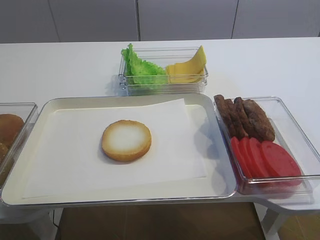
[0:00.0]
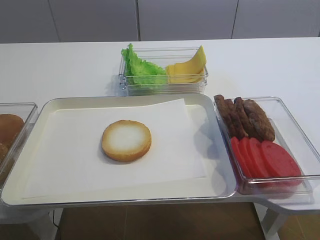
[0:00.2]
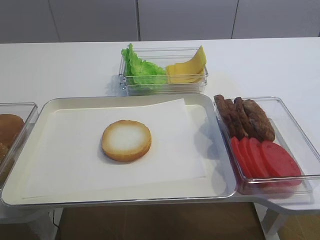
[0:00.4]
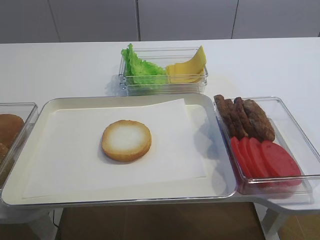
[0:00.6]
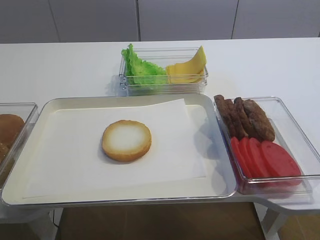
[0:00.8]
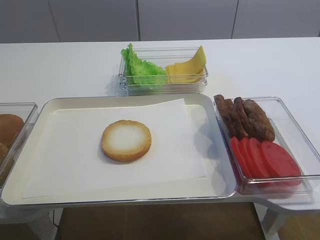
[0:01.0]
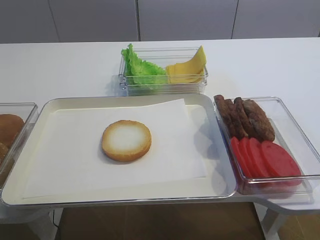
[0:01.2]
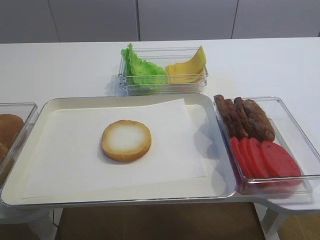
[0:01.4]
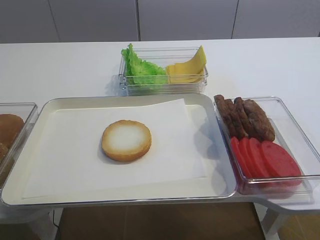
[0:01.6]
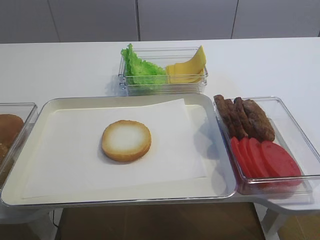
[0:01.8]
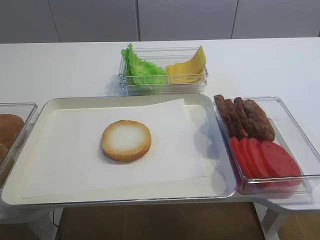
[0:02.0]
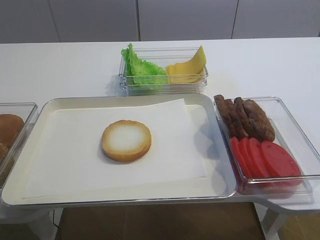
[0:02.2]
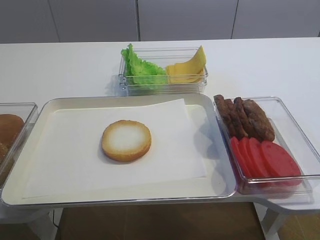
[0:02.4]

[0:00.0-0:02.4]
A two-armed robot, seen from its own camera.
0:01.2 to 0:02.4: Neither gripper changes place.

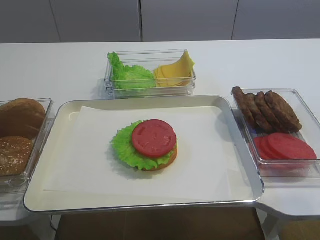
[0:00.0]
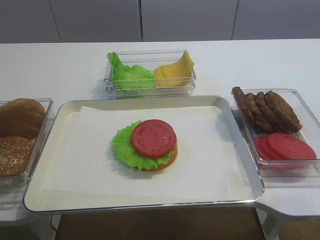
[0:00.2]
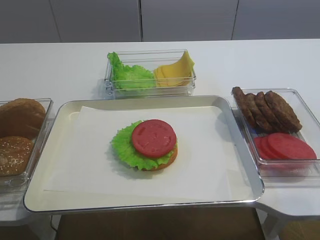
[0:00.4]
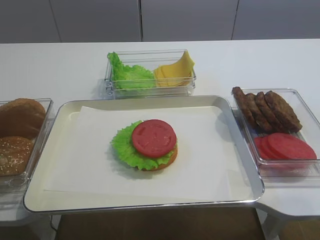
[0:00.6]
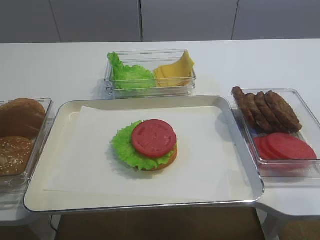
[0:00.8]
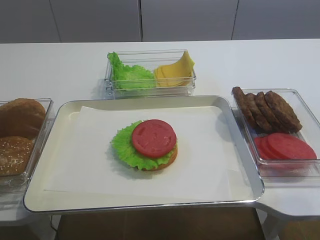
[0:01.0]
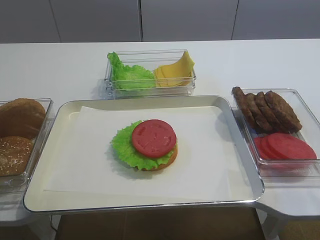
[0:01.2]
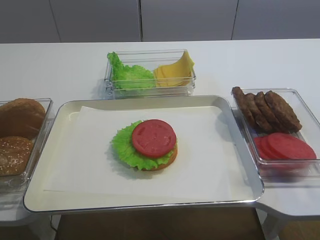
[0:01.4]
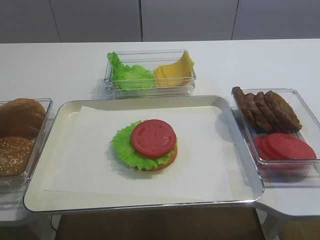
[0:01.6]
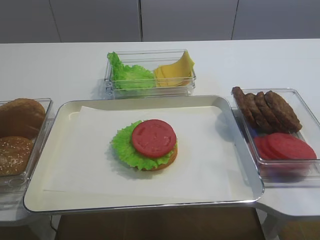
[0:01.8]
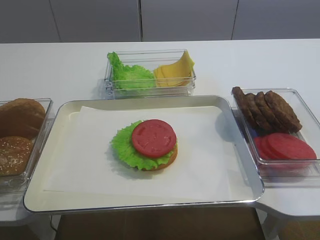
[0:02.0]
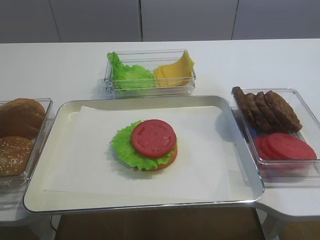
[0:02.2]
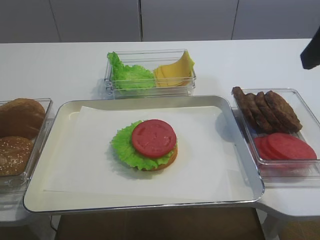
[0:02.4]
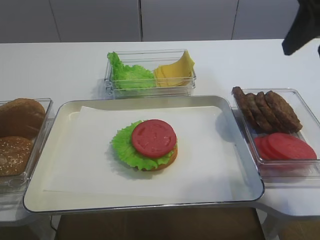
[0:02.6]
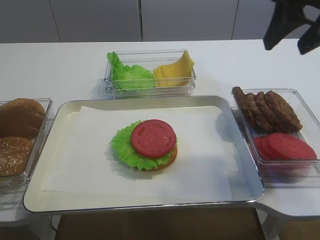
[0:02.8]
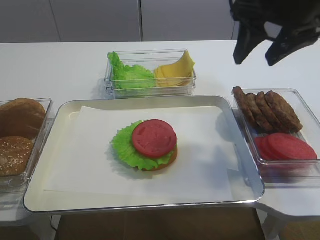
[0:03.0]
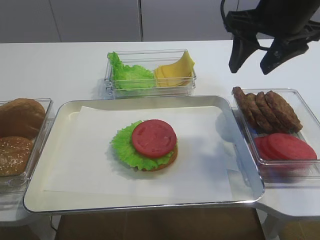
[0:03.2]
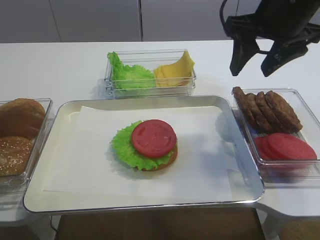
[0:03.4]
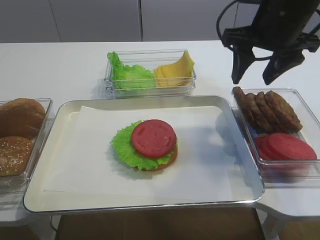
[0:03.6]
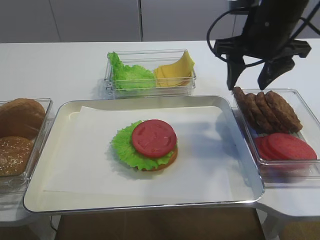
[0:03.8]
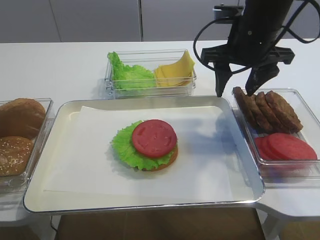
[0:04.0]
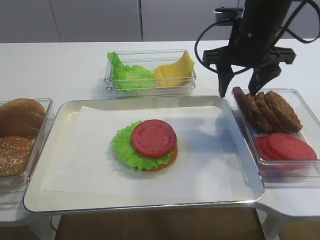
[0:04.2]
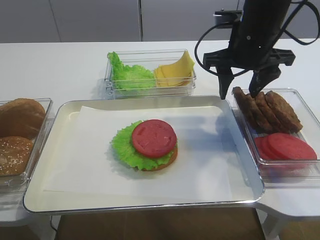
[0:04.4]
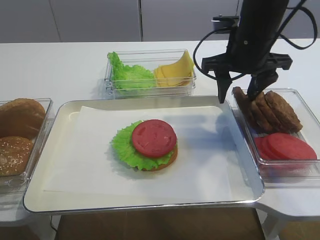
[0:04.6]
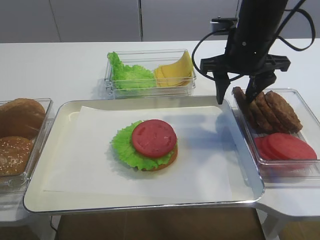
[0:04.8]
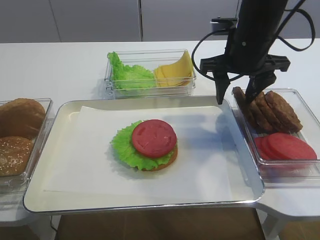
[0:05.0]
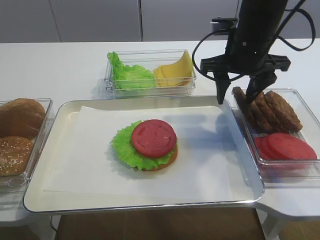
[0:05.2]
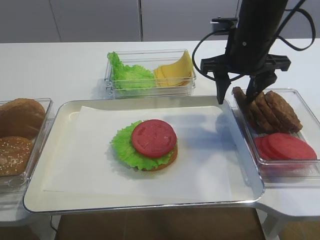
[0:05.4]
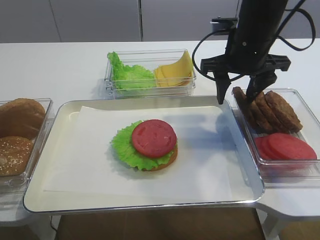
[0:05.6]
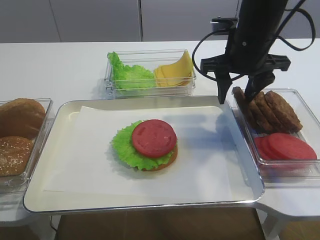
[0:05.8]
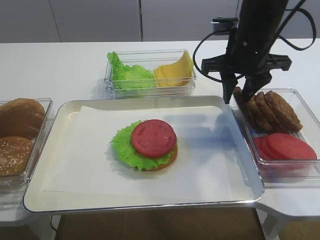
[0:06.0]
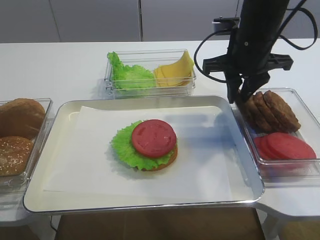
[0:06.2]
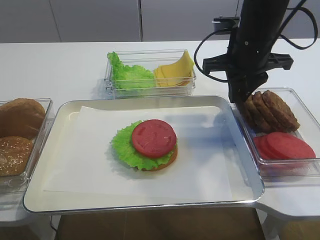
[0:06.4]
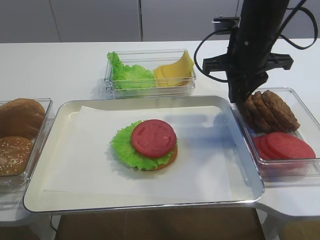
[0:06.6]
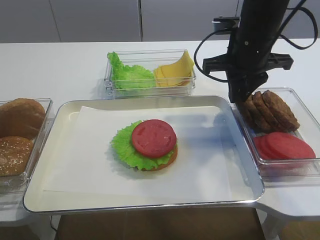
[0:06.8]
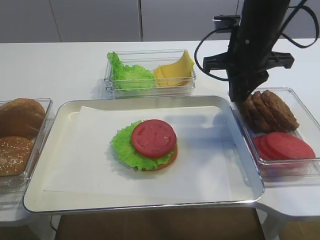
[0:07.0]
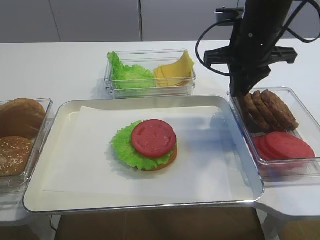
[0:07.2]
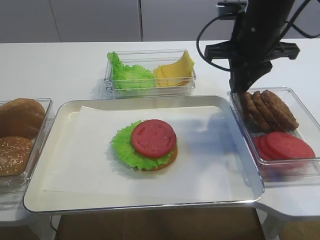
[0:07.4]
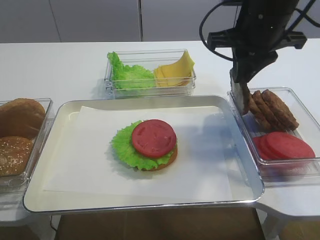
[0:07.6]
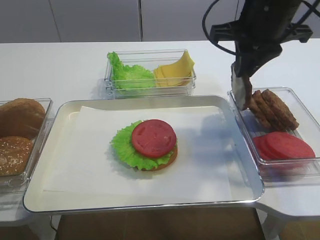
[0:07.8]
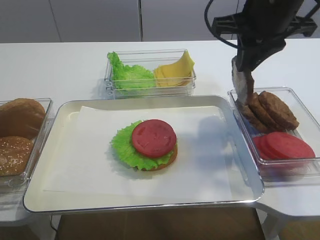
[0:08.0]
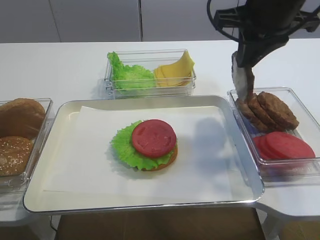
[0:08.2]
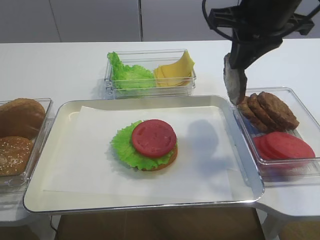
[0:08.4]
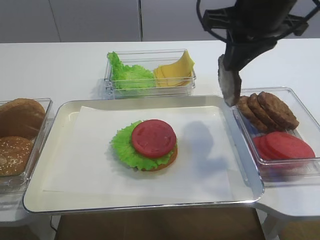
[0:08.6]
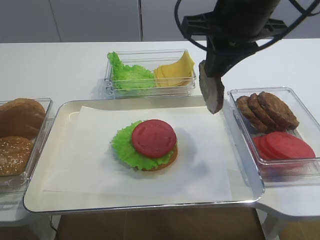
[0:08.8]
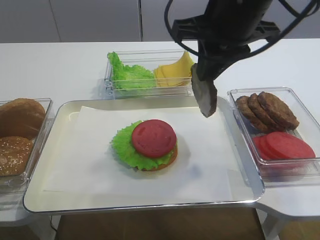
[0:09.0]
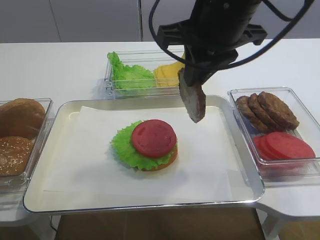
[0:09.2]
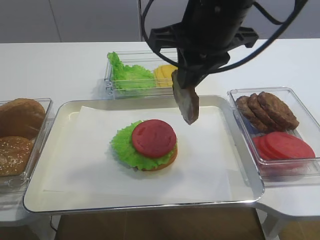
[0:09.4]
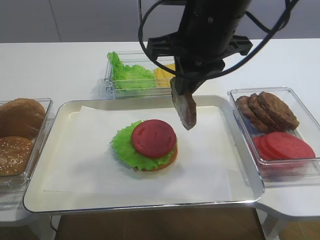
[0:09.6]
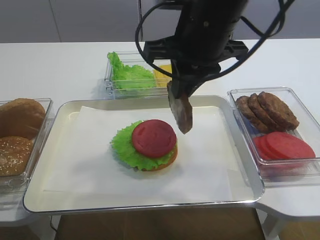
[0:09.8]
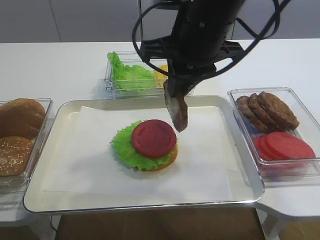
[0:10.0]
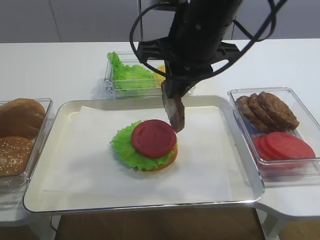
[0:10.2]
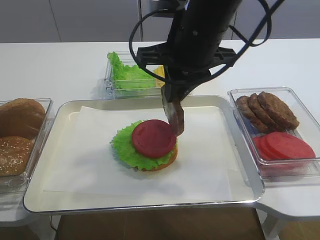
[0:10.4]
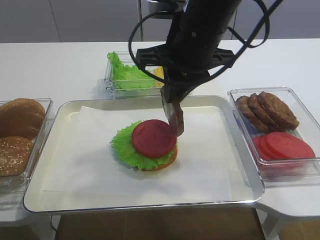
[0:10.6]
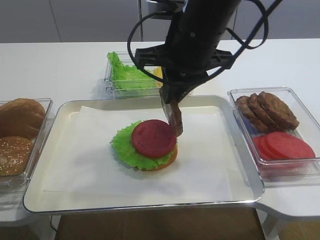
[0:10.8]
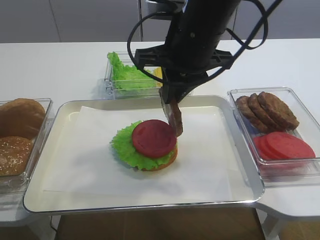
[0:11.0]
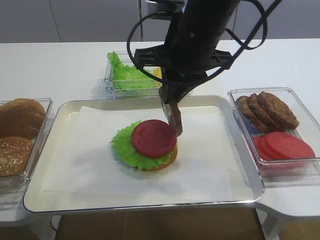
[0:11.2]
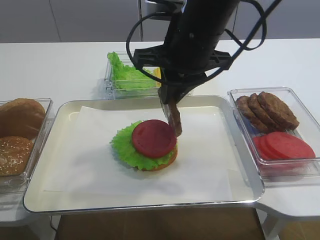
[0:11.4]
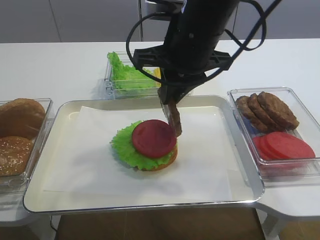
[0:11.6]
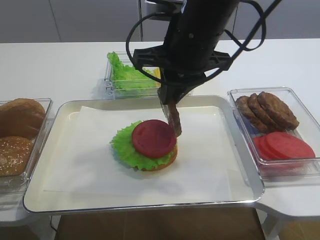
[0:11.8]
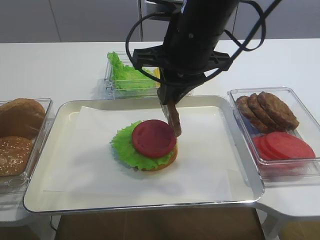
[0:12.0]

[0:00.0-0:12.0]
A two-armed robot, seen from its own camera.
Step, 0:00.0 to 0:08.4: Pick up the cutlet with the right gripper.
0:01.6 to 0:03.0: The right gripper goes roughly 25 cm forward.
0:03.0 to 0:04.4: The right gripper travels downward and forward by roughly 10 cm.
0:04.4 to 0:06.0: The right gripper closes its fingers.
0:06.0 to 0:07.6: The right gripper closes.
0:07.6 to 0:09.0: The right gripper heads to the left, covering some 5 cm.
0:09.0 to 0:10.4: The right gripper shifts by about 5 cm.
0:10.4 to 0:12.0: Both grippers stay put.

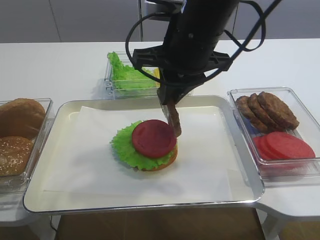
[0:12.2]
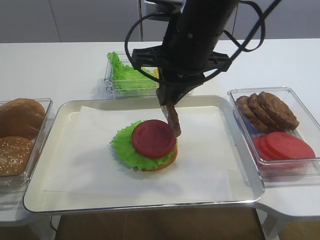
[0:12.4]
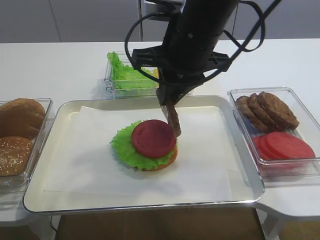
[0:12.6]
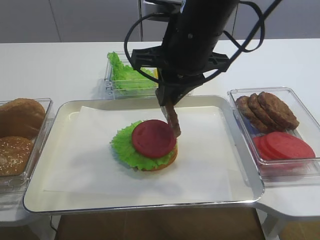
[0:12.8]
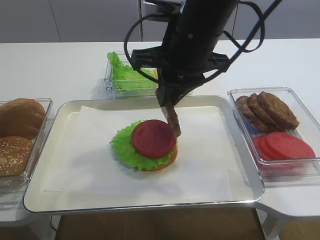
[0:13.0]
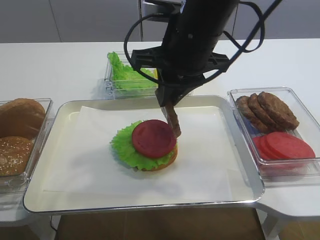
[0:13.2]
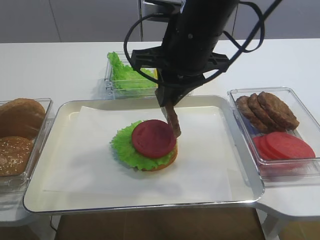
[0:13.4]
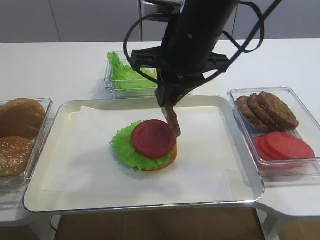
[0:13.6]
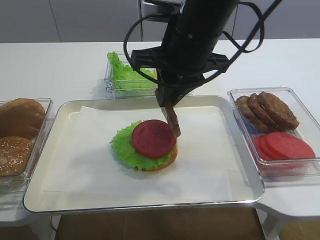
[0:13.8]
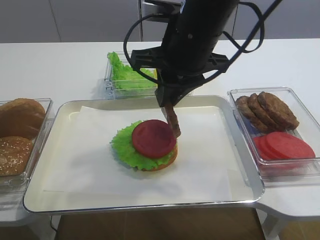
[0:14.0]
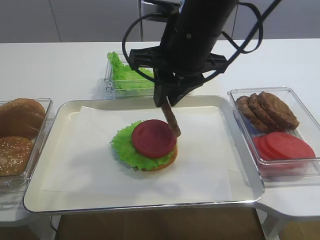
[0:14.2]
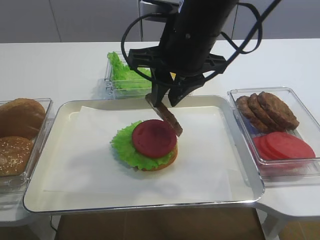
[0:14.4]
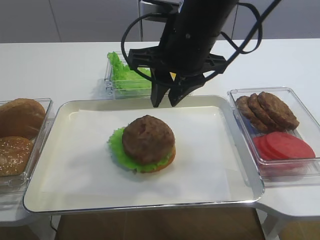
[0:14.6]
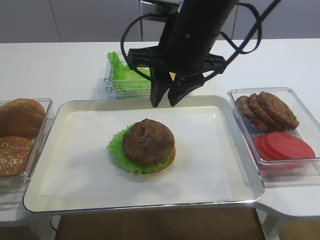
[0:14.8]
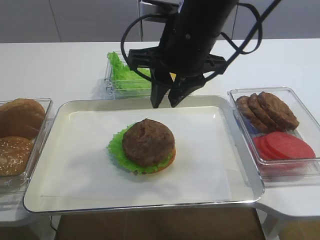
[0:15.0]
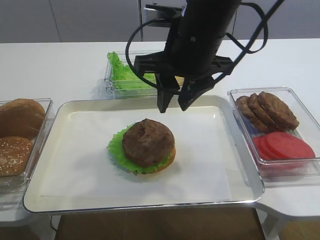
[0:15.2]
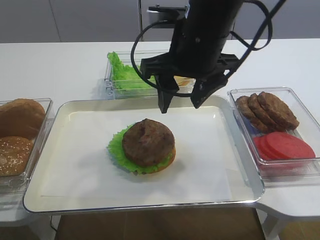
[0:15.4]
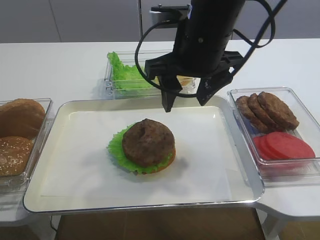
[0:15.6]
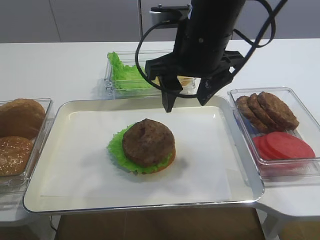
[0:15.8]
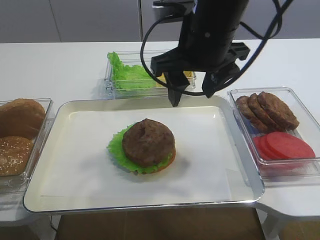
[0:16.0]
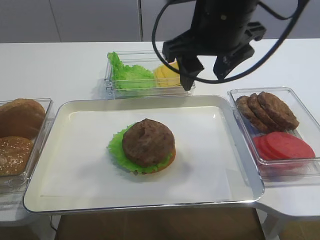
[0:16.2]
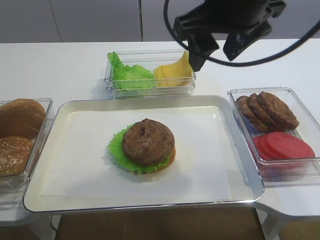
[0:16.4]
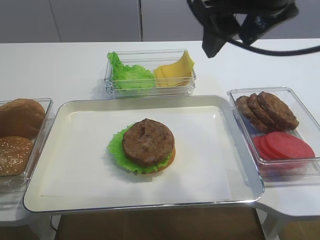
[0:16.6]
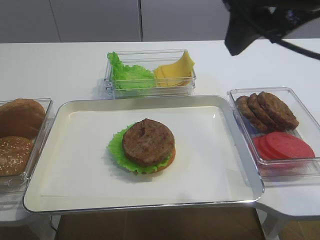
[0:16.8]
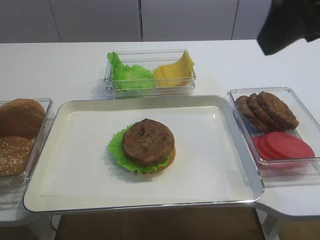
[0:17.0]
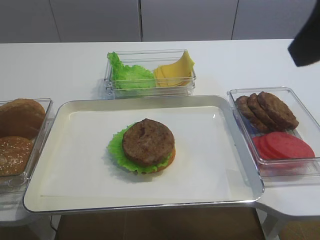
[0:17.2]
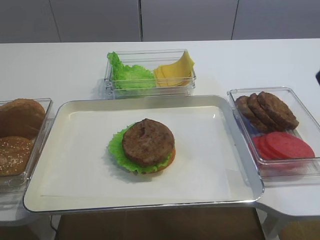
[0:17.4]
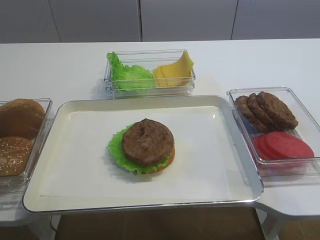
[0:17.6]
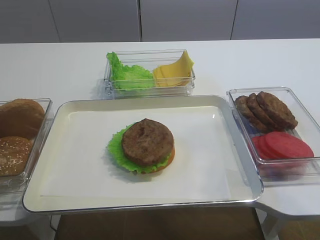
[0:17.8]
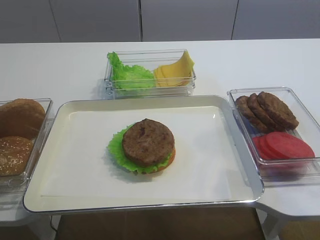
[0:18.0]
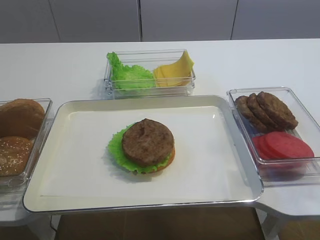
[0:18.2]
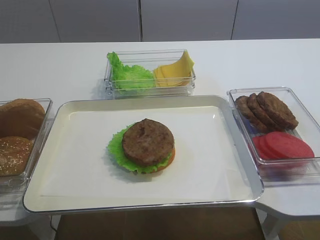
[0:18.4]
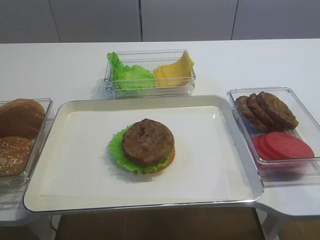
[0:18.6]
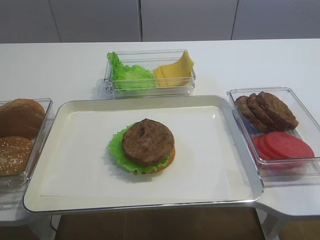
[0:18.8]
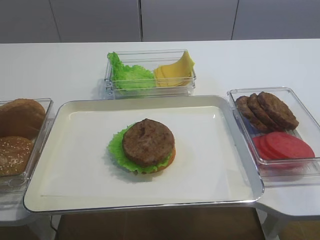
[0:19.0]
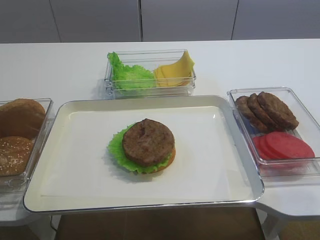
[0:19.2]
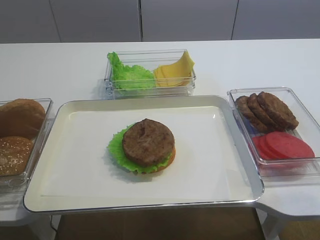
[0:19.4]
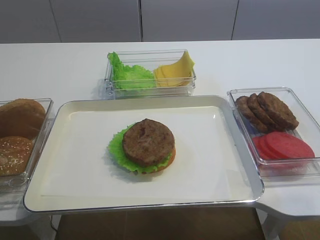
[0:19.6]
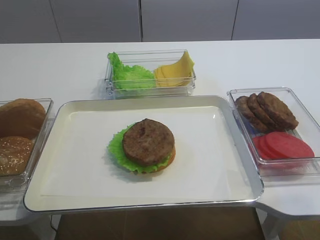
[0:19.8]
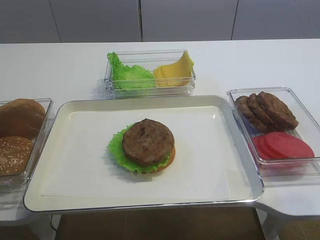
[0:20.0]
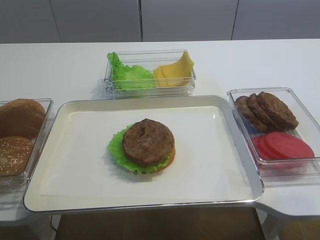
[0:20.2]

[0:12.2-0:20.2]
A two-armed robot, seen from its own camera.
Step, 0:12.2 to 0:15.0: Place the cutlet on the tomato slice with the right gripper.
0:12.2 to 0:13.8: Neither gripper changes place.
0:13.8 to 0:15.4: The right gripper opens.
0:15.4 to 0:17.0: The right gripper goes some 20 cm backward, upward and to the right.
0:17.0 to 0:18.6: The right gripper travels backward, downward and to the right by some 25 cm.
